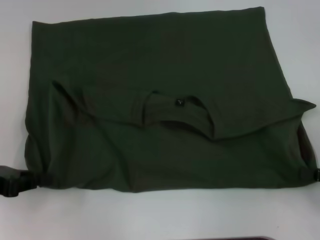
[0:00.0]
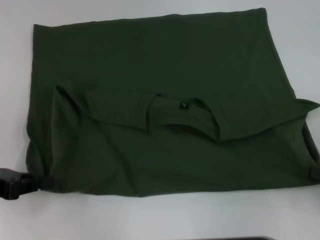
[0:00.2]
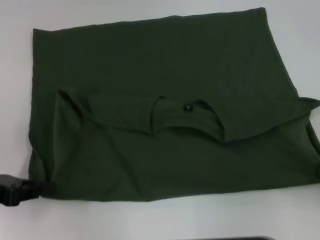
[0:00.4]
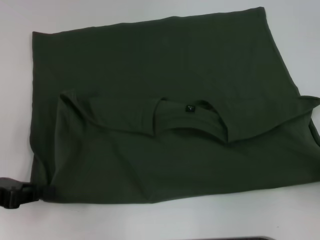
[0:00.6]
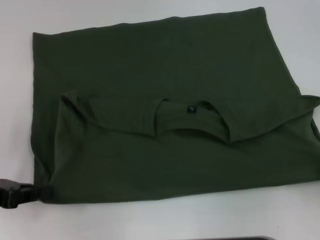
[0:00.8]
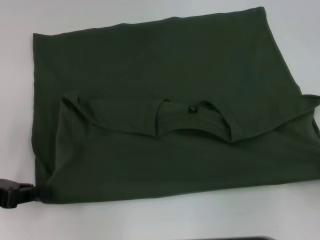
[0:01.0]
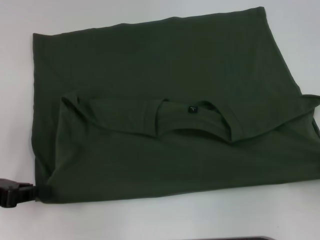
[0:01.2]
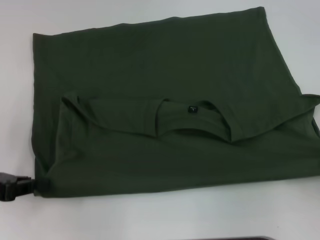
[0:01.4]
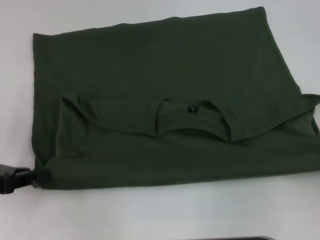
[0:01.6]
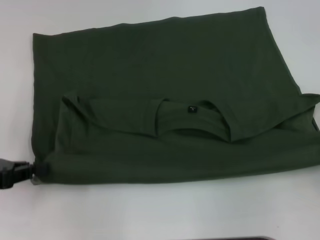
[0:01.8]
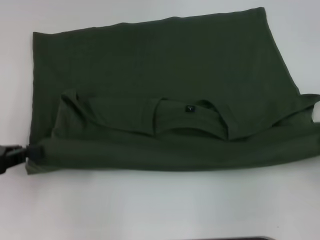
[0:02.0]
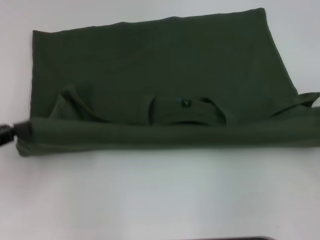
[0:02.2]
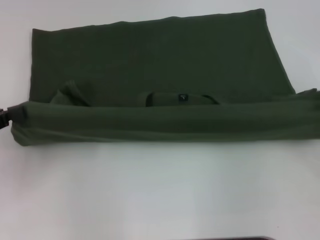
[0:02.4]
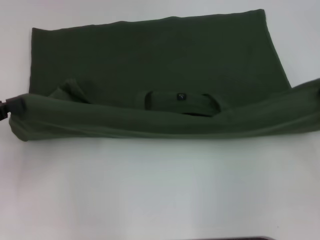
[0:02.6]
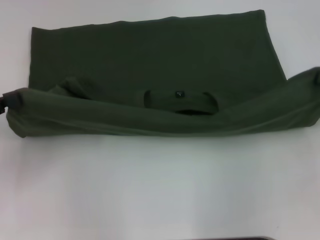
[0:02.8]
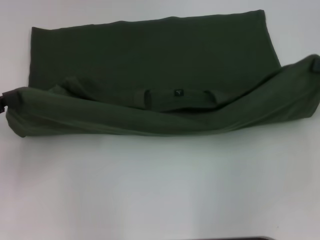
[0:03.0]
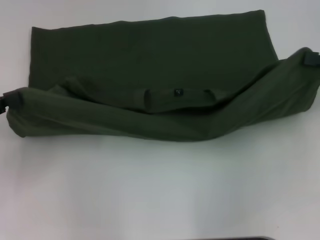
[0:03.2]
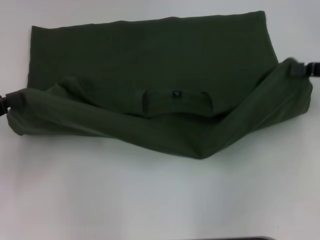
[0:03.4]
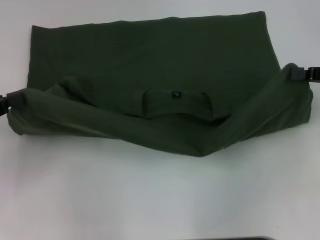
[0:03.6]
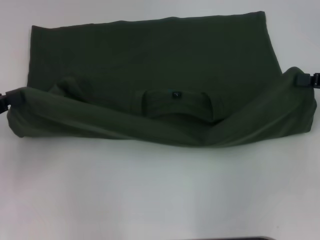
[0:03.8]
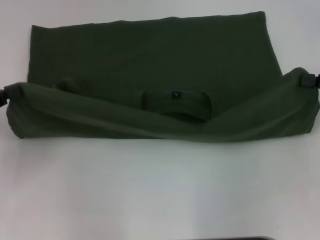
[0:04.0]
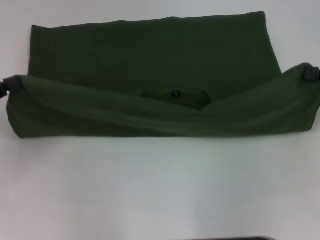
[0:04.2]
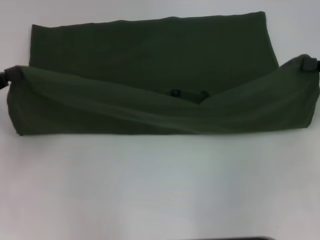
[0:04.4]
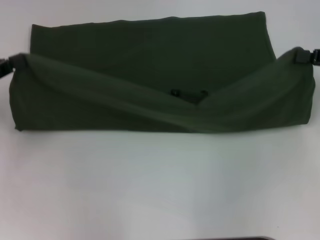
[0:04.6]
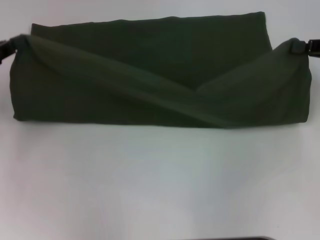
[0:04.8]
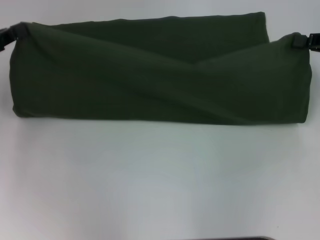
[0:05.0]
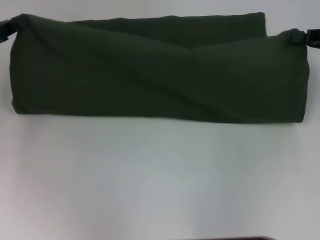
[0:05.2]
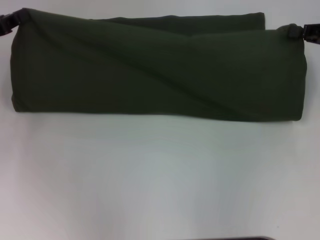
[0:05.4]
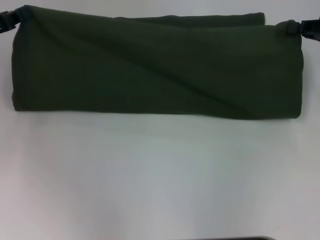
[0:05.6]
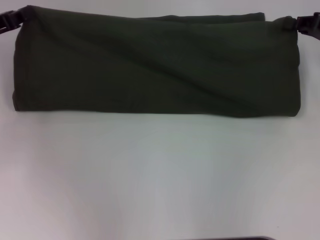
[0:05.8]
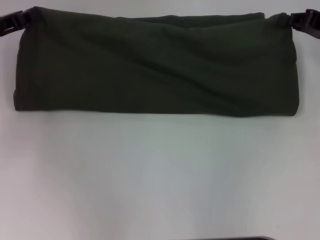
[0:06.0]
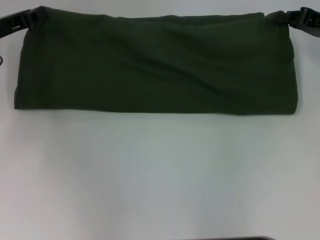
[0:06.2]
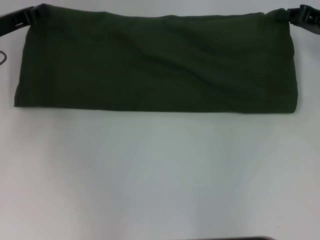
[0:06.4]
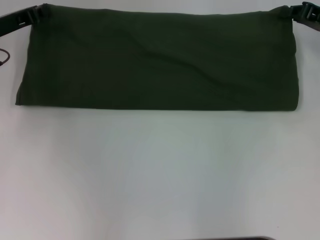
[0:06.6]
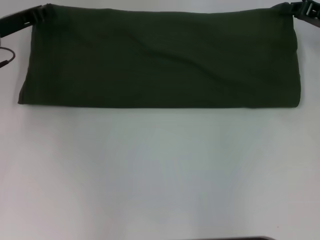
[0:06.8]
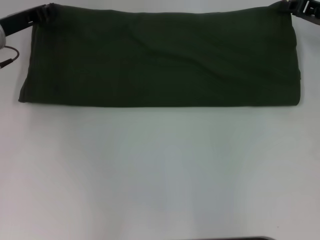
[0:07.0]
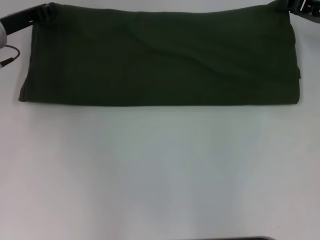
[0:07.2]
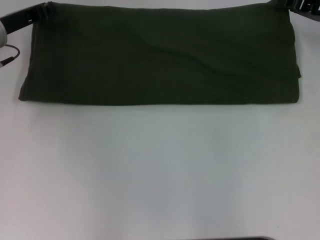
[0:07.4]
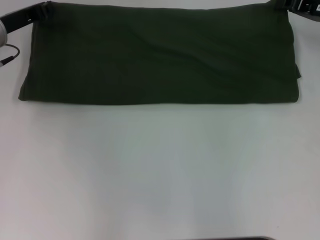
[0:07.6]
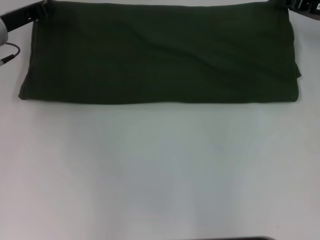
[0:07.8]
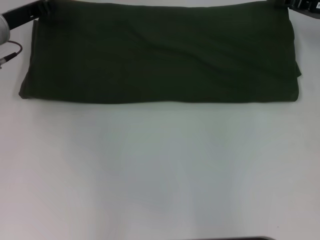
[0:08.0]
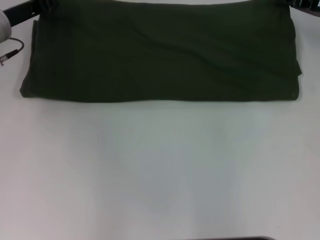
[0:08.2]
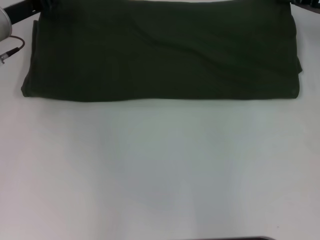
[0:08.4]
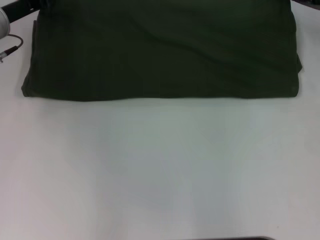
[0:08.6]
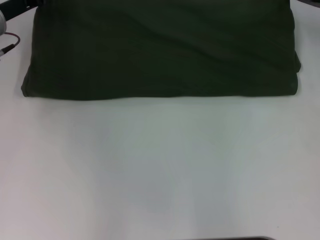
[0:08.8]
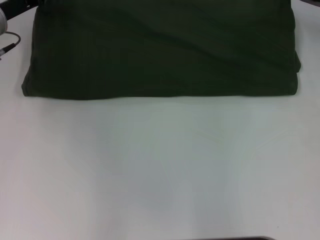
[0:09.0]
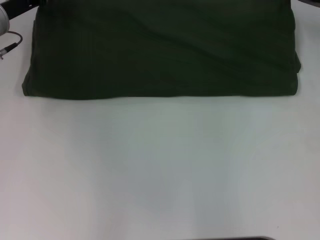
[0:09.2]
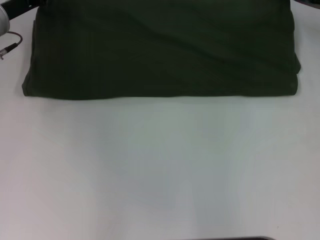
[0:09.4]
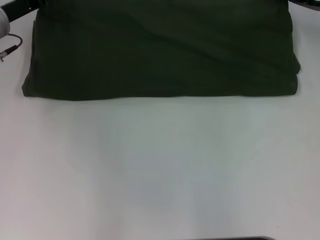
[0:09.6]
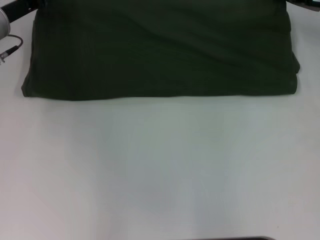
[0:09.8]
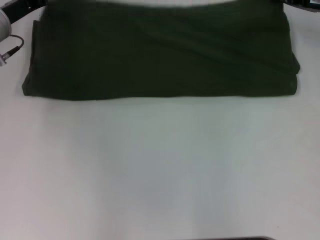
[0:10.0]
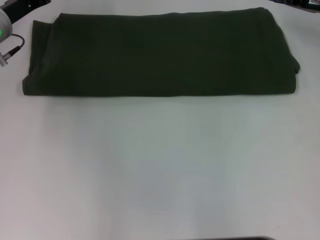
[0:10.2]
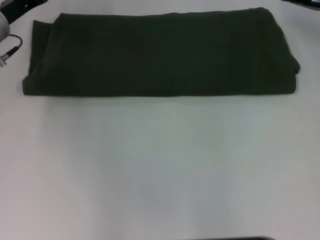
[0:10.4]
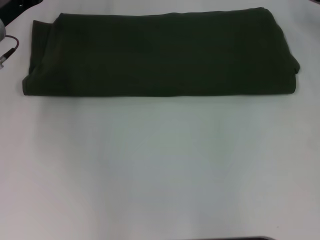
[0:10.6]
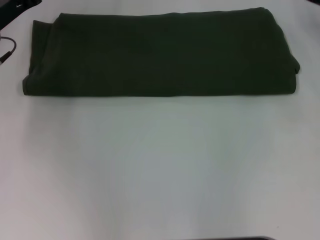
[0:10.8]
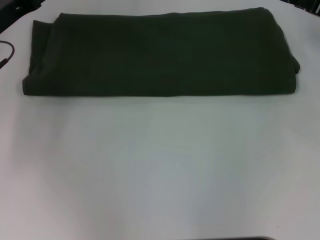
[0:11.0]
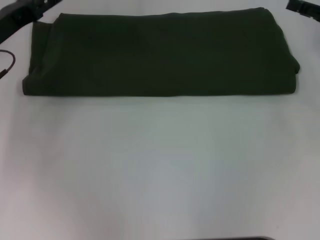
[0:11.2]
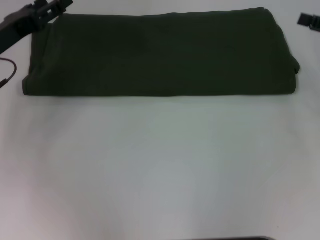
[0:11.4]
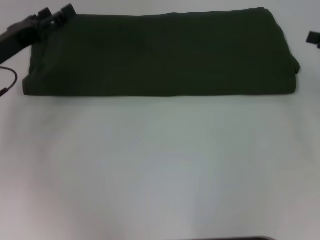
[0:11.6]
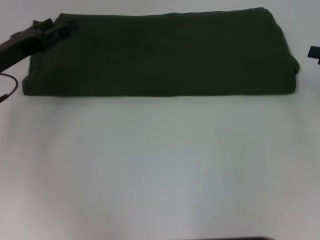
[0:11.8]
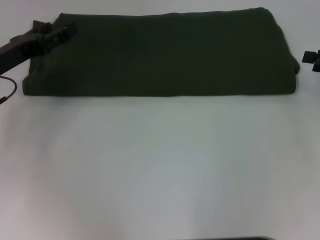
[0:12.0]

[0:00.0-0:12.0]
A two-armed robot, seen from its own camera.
Step, 0:01.6 to 0:10.2: Fold the clothes with your left hand.
Step, 0:01.6 to 0:10.2: Fold the clothes with your right hand.
0:00.0 to 0:01.6: There are only small adjustments of the grippers.
0:01.6 to 0:03.0: The right gripper travels forward and upward by some 15 cm.
0:03.0 to 0:04.4: The grippers stay close to where they were, moving slightly.
0:04.4 to 0:06.0: The right gripper is displaced forward by approximately 5 cm. Meanwhile the left gripper goes approximately 10 cm forward.
0:06.0 to 0:07.6: The left gripper ends up roughly 5 cm from where it was.
0:07.6 to 0:09.0: There are only small adjustments of the grippers.
0:09.0 to 0:10.4: The right gripper opens up.
0:10.4 to 0:12.0: The left gripper shifts roughly 10 cm backward, and opens. Meanwhile the right gripper shifts about 15 cm backward and to the right, and opens.

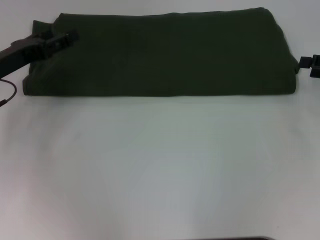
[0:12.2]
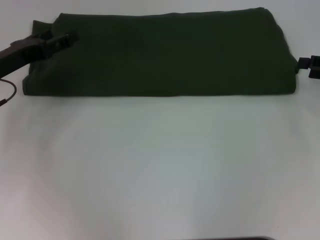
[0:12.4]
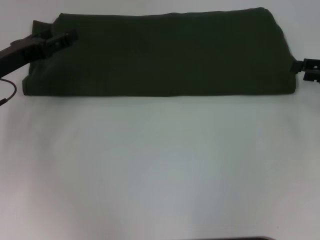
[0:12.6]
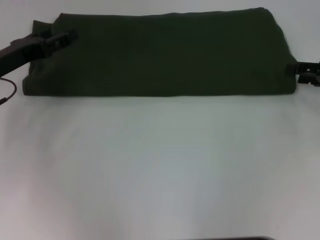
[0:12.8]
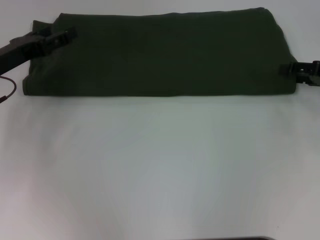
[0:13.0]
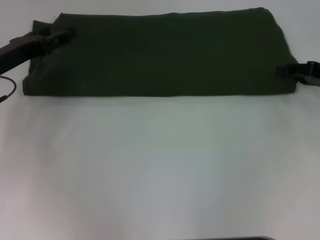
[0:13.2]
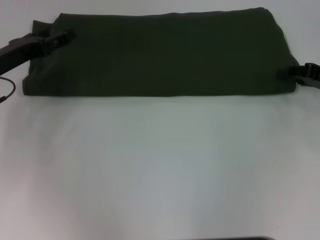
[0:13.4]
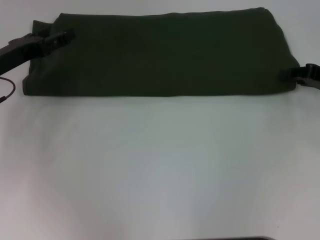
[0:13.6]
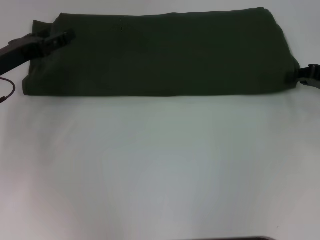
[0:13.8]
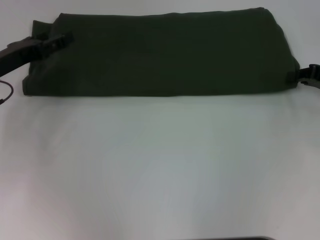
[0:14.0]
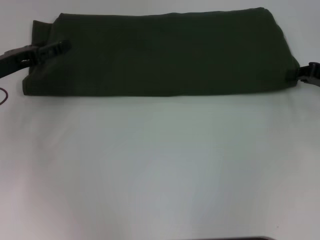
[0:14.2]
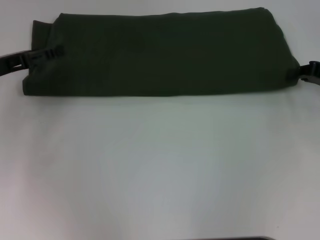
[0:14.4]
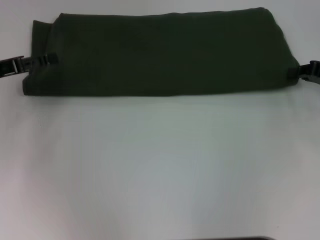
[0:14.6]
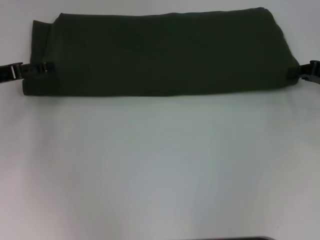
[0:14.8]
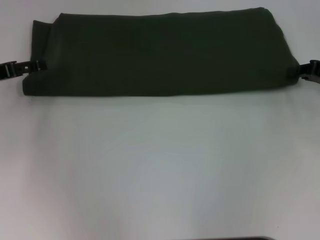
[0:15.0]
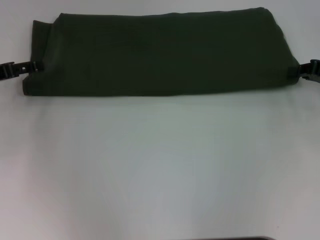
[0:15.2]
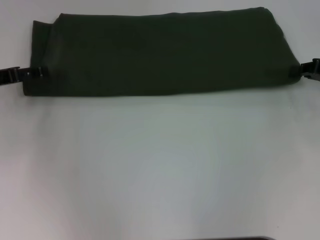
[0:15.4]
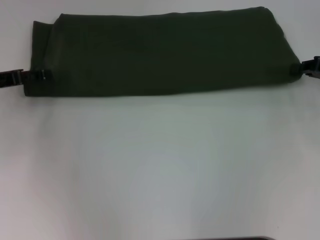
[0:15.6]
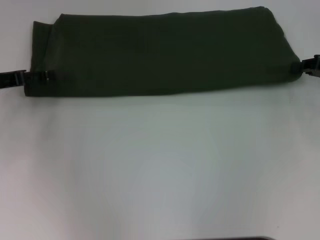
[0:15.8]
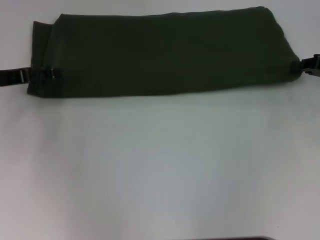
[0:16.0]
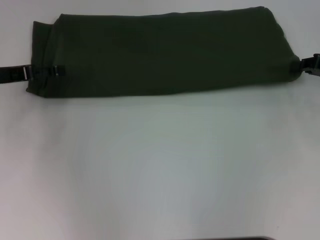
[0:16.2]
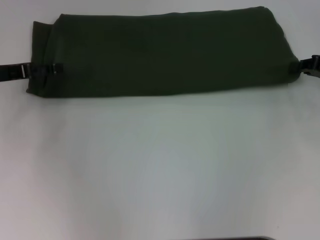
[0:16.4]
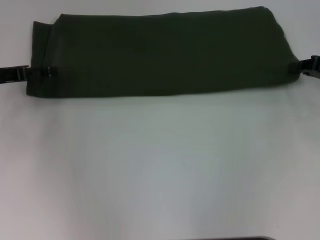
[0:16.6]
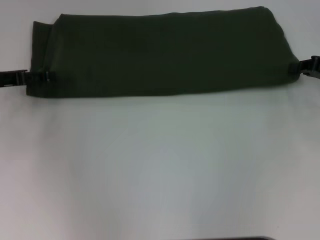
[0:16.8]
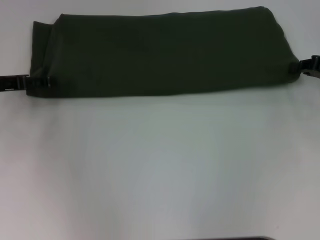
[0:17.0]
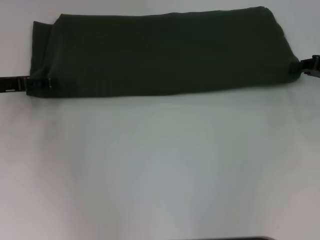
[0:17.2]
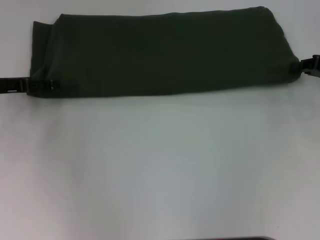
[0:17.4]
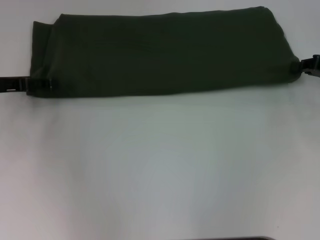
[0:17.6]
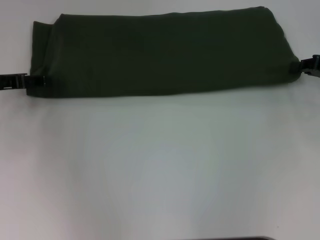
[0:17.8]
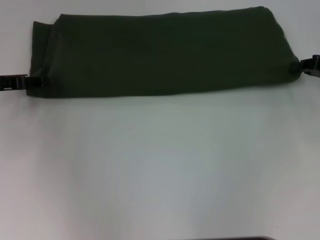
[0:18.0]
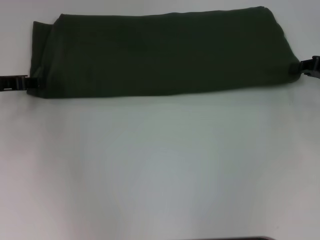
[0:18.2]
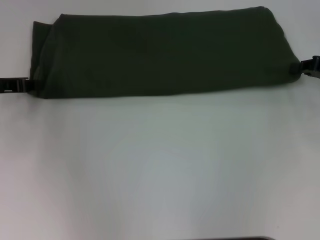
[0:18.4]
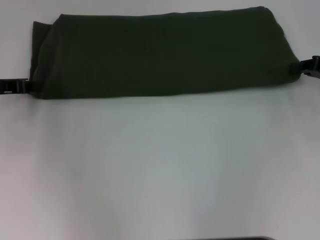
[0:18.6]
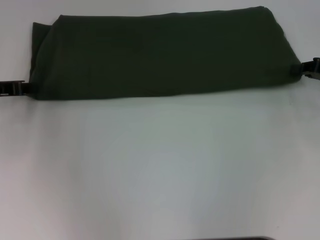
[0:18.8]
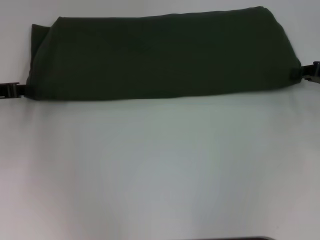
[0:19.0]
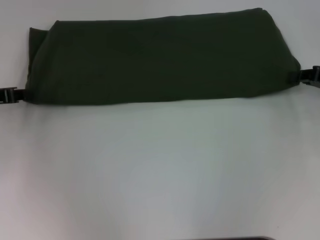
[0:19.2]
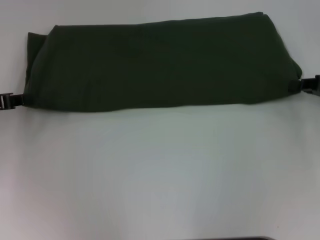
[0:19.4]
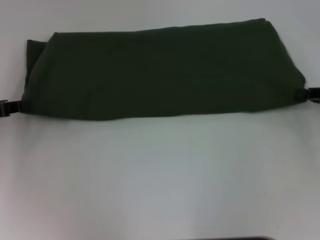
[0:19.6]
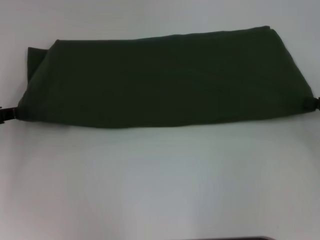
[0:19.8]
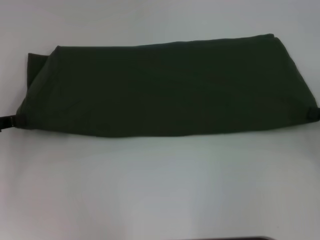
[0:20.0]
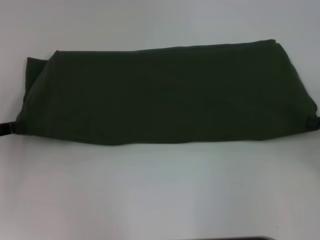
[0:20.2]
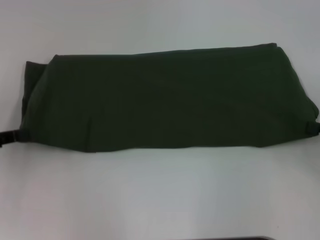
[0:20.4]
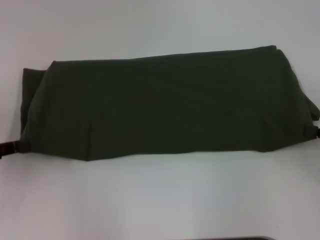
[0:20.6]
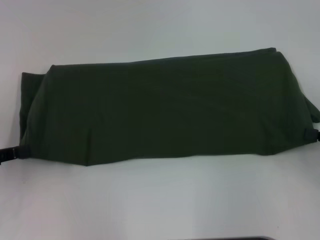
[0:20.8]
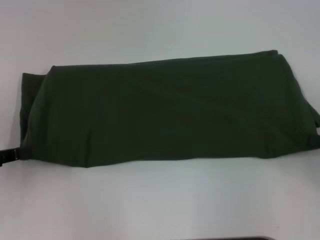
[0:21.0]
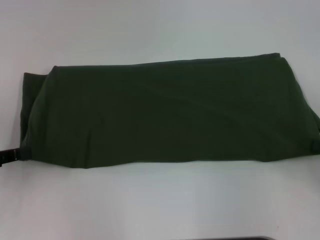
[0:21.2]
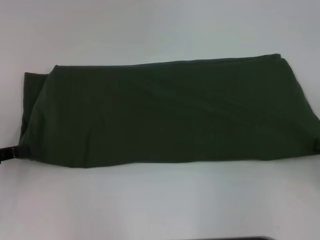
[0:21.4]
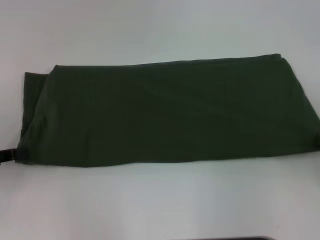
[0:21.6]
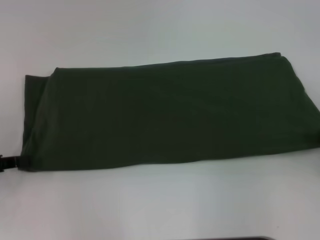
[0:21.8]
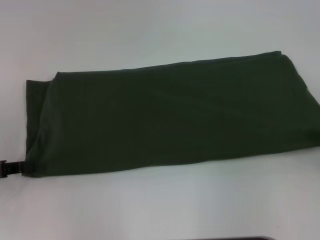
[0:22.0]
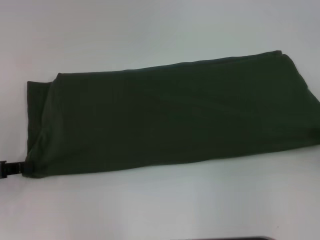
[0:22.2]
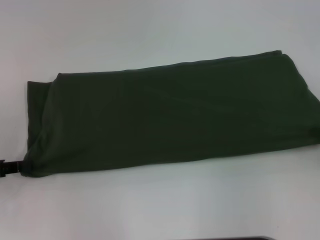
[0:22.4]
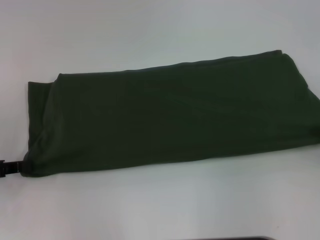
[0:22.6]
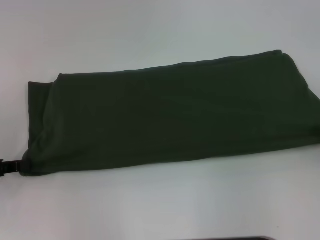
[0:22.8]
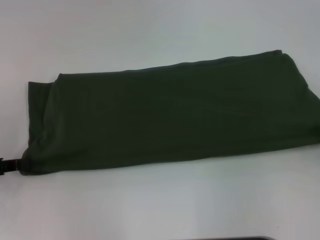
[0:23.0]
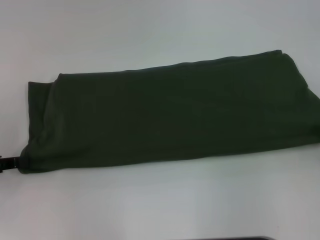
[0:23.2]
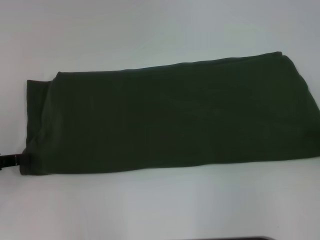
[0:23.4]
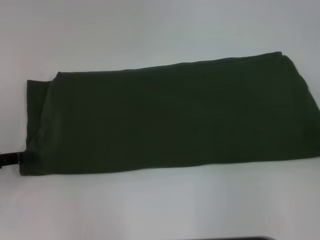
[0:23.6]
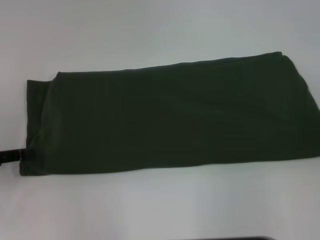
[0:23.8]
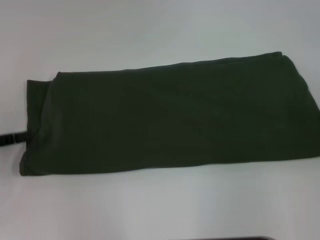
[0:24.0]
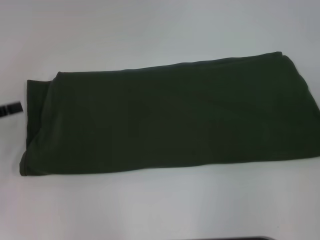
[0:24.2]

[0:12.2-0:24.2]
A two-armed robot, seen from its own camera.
Step, 0:12.2 to 0:23.6: Pull the clothes with your left hand.
Step, 0:12.2 to 0:23.6: Pull the clothes with your right hand.
0:12.2 to 0:13.8: The right gripper closes its fingers.
0:13.8 to 0:15.2: The left gripper changes place by approximately 5 cm.
0:15.2 to 0:16.6: The grippers make only small movements.
0:16.6 to 0:18.2: The left gripper closes its fingers.
0:18.2 to 0:19.8: Both grippers travel together backward, approximately 5 cm. The left gripper closes its fingers.
0:19.8 to 0:21.2: Both grippers travel together backward, approximately 5 cm.
0:21.2 to 0:22.6: The grippers stay close to where they were, moving slightly.
0:22.6 to 0:24.2: The right gripper opens up, while the left gripper opens its fingers.
